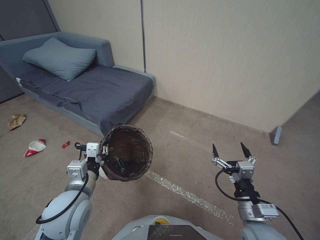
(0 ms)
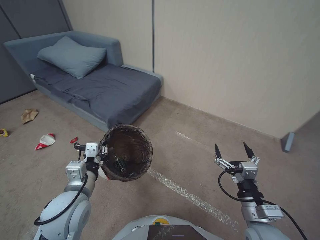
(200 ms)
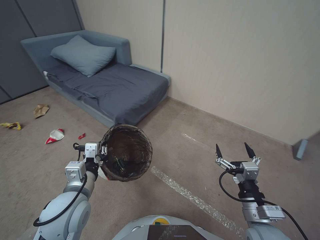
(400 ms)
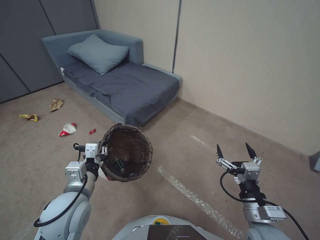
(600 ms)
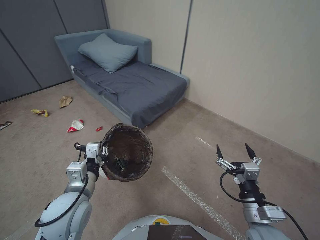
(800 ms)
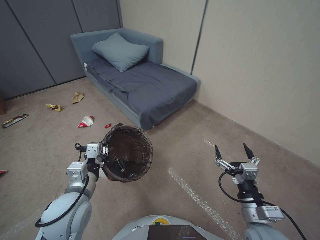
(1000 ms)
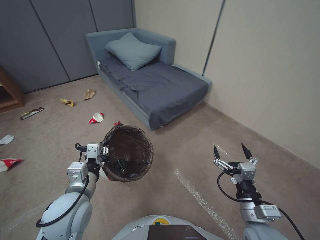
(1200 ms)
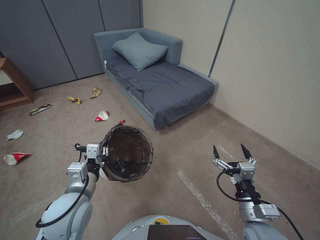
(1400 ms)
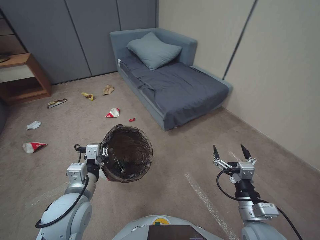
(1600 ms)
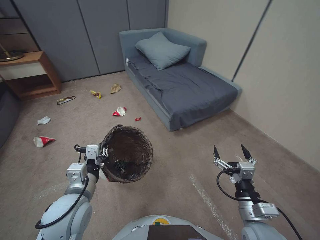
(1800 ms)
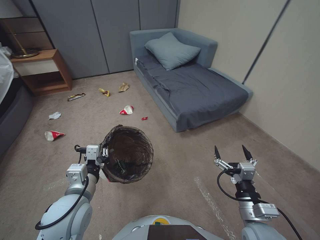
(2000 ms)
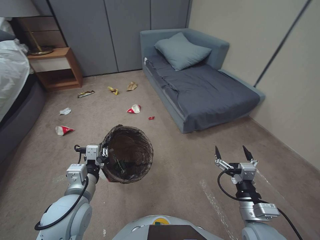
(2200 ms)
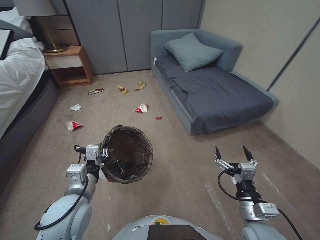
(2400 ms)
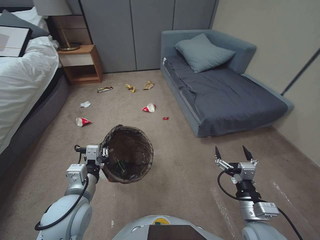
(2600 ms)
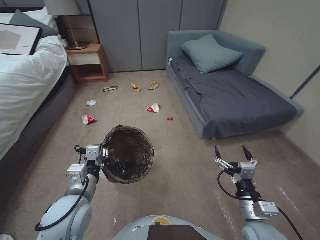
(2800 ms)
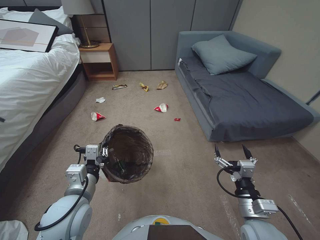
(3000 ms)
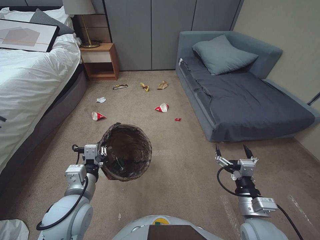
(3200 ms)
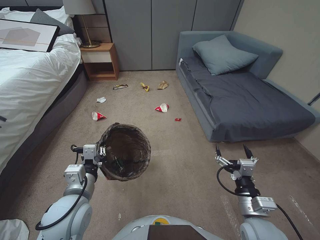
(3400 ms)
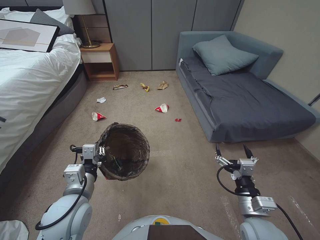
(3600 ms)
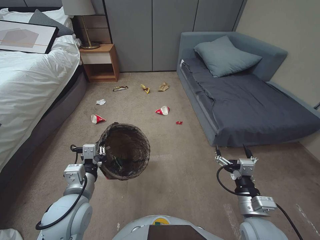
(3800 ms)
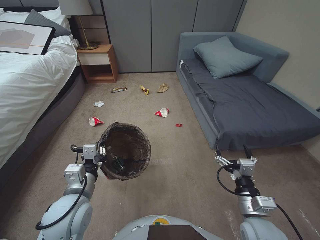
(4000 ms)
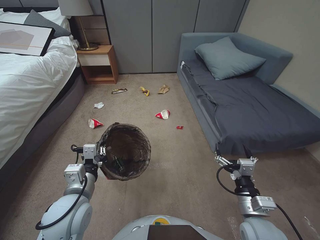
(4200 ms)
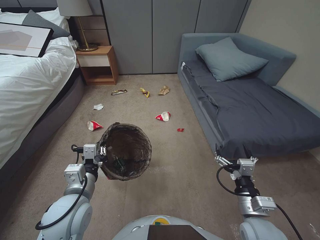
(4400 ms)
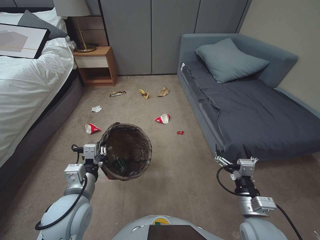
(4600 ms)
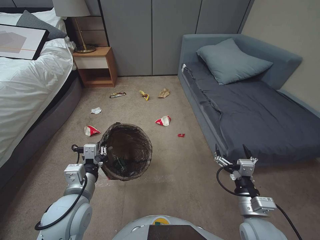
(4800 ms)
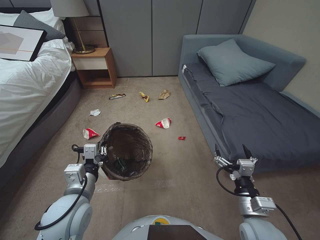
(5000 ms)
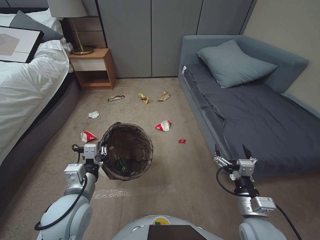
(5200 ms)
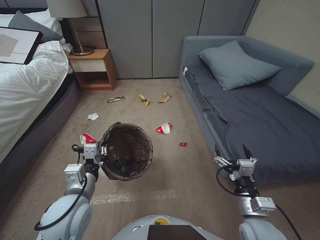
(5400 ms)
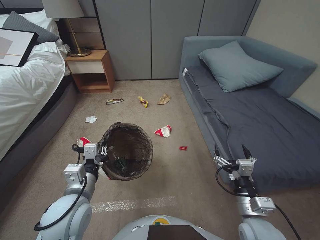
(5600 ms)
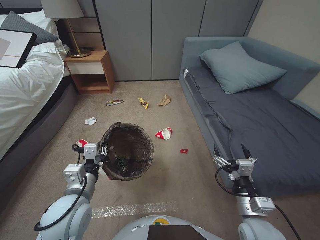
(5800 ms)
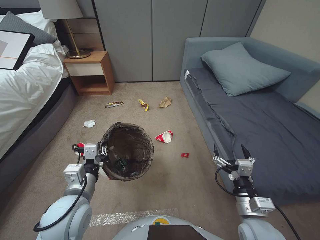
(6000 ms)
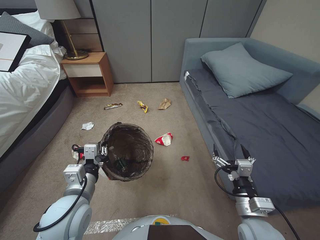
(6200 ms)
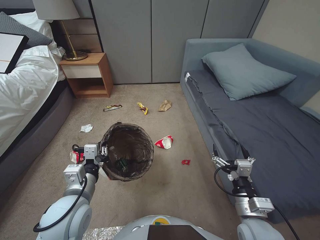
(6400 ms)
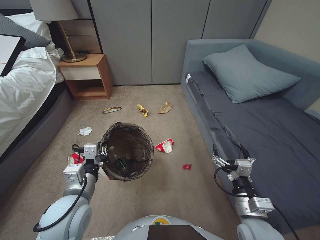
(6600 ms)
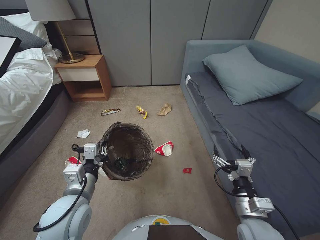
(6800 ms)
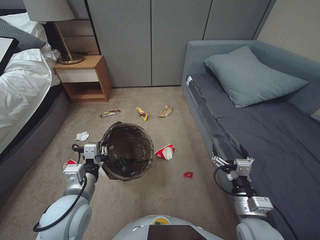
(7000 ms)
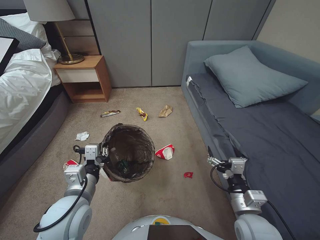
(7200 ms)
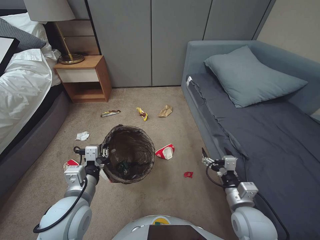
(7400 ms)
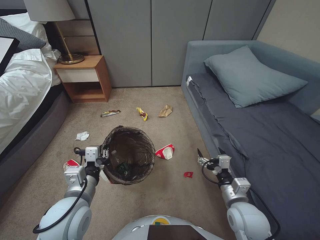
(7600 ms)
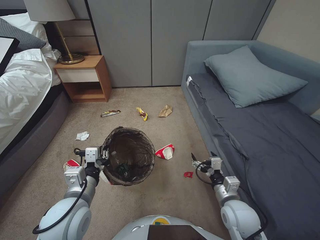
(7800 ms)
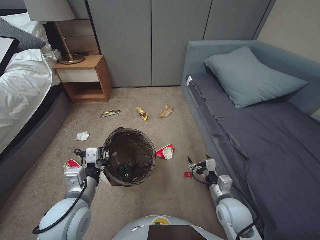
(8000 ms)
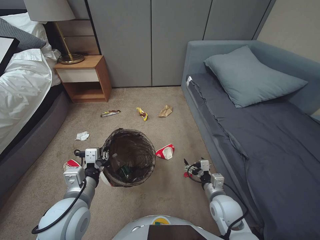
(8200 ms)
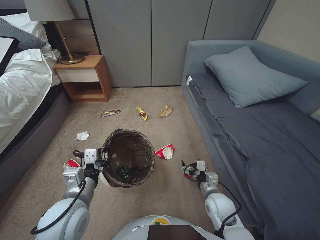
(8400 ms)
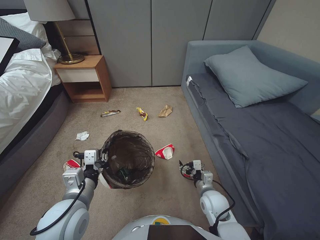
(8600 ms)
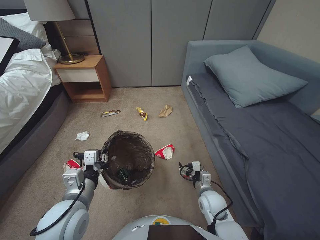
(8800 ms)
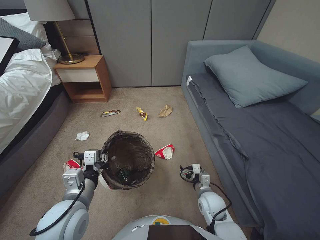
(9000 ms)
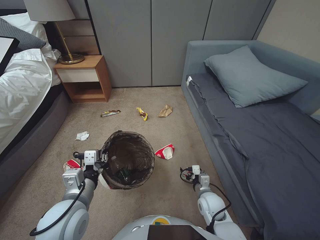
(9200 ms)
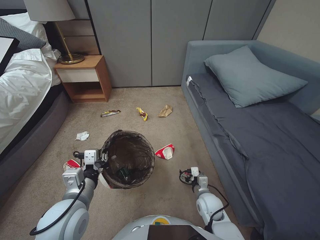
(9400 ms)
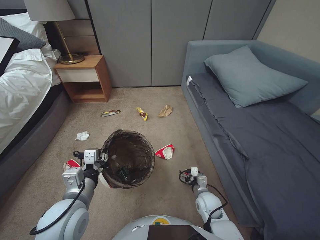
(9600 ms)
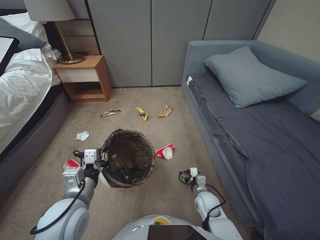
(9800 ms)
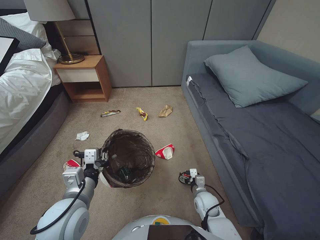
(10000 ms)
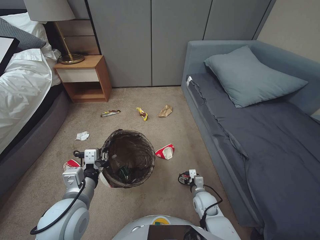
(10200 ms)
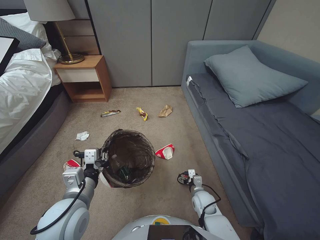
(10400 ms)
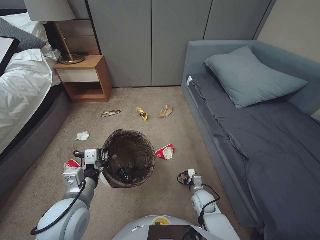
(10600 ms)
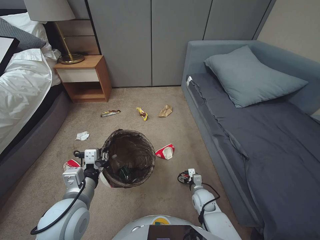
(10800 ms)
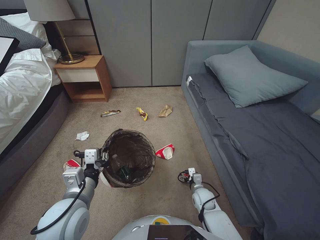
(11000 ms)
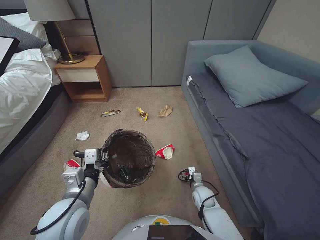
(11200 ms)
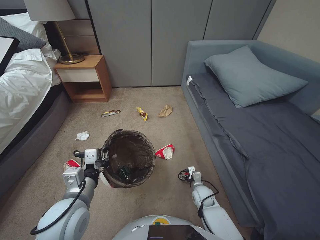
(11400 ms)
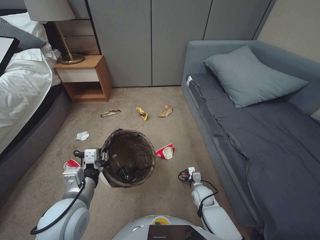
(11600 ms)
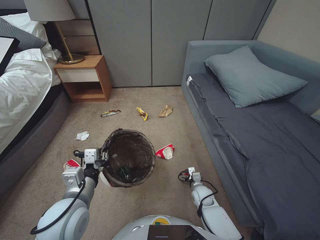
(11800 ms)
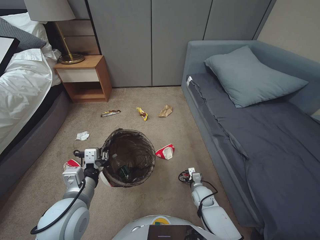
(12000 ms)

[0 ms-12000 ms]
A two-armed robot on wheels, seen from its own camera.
Task of the whole recording: Pick up the trash bin, then pick up the garbage from the floor and place it into the trash bin.
3000 ms to 4400 ms: The two grippers keep their place.
7600 ms to 9000 ms: The right gripper is displaced downward and forward by approximately 15 cm.
9000 ms to 10400 ms: The right gripper shifts about 5 cm downward.
10400 ms to 12000 ms: The grippers make only small movements.

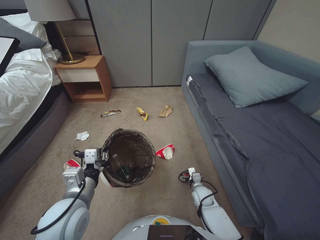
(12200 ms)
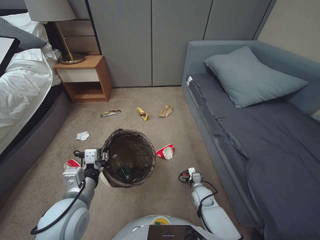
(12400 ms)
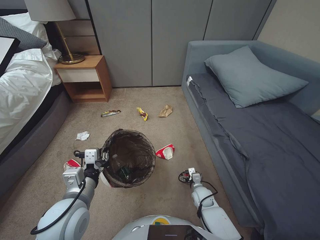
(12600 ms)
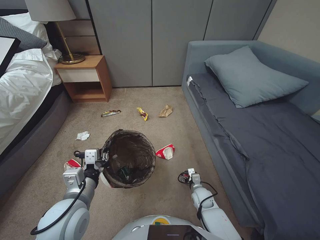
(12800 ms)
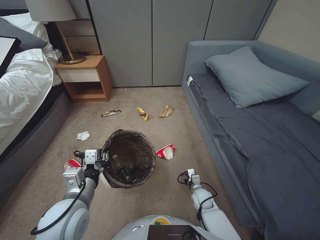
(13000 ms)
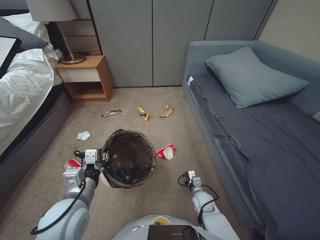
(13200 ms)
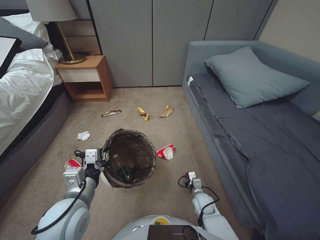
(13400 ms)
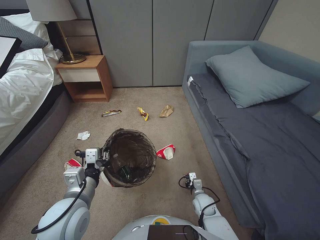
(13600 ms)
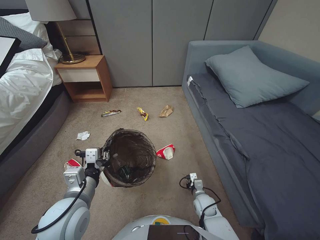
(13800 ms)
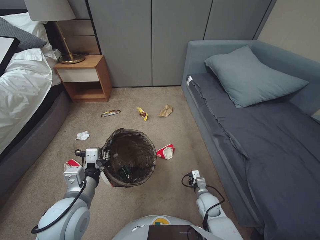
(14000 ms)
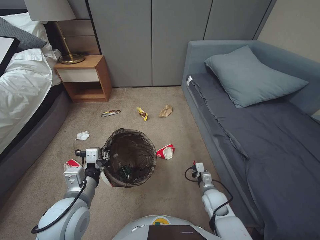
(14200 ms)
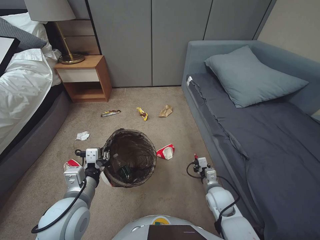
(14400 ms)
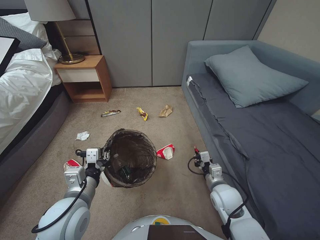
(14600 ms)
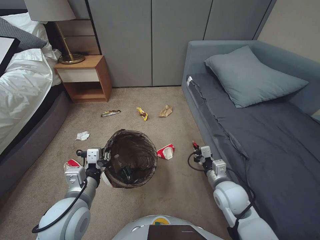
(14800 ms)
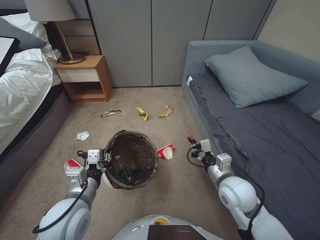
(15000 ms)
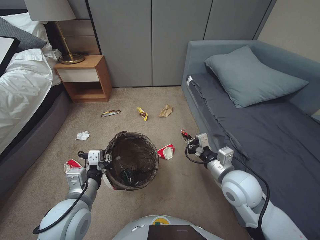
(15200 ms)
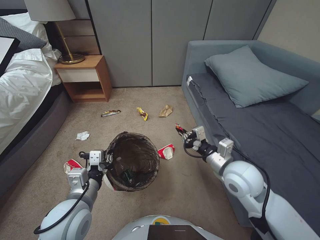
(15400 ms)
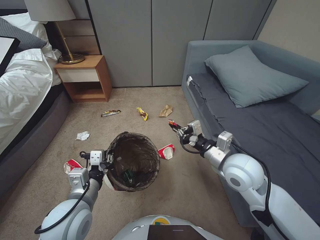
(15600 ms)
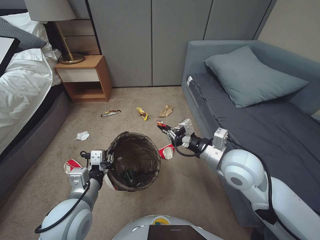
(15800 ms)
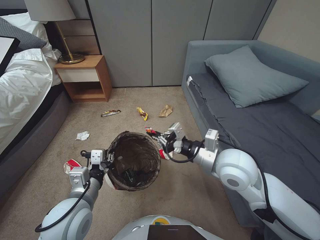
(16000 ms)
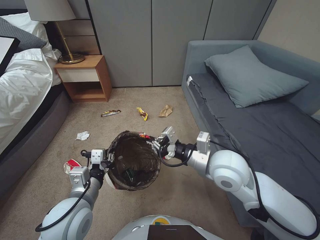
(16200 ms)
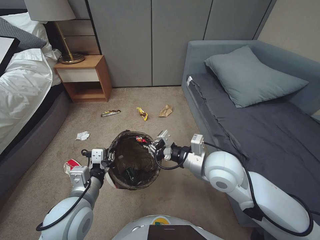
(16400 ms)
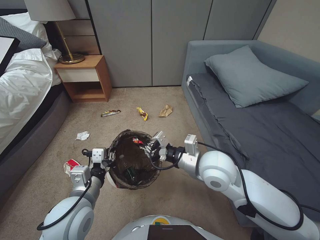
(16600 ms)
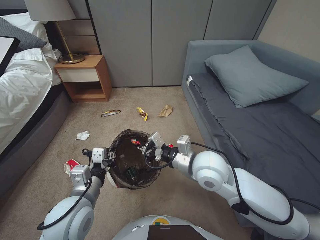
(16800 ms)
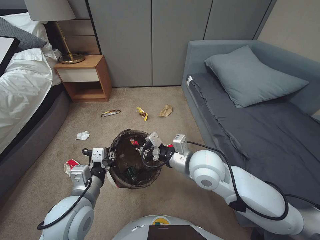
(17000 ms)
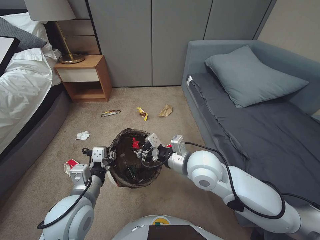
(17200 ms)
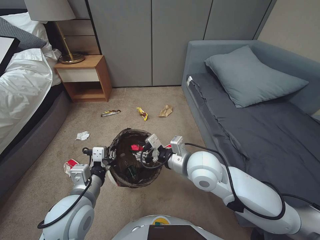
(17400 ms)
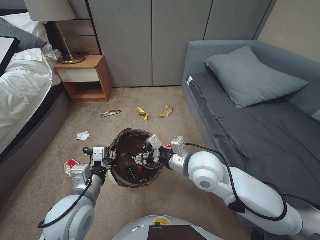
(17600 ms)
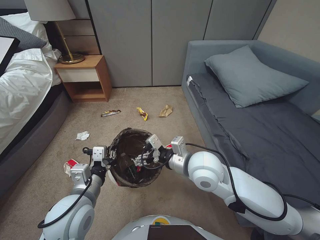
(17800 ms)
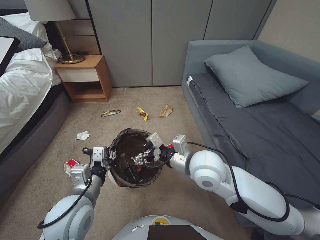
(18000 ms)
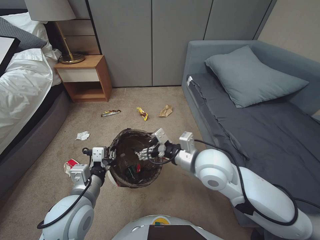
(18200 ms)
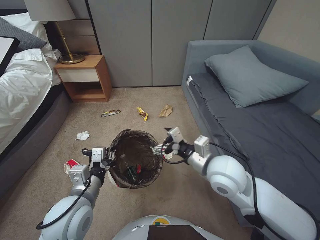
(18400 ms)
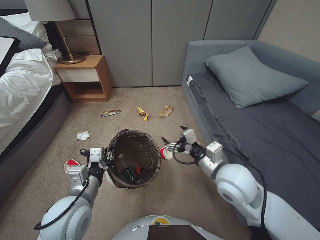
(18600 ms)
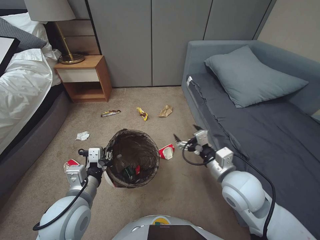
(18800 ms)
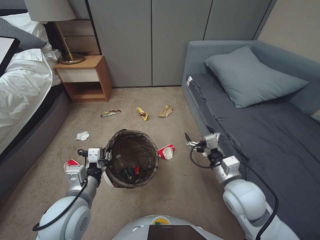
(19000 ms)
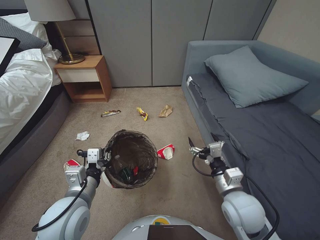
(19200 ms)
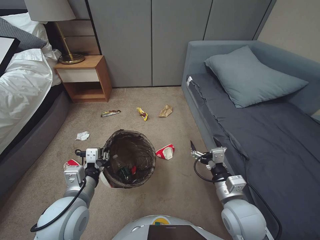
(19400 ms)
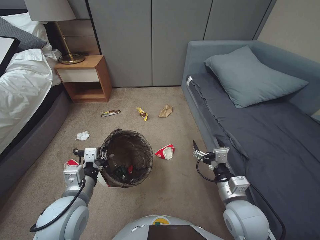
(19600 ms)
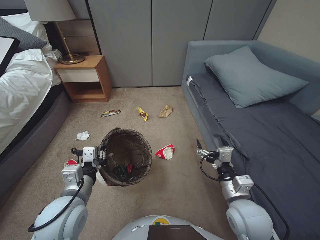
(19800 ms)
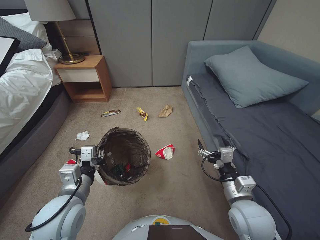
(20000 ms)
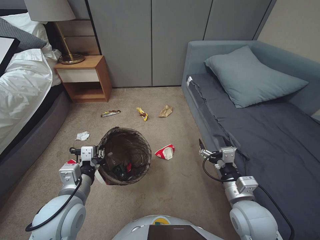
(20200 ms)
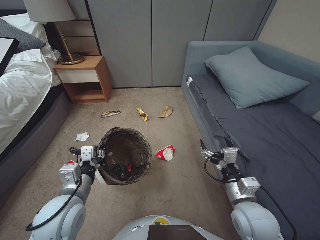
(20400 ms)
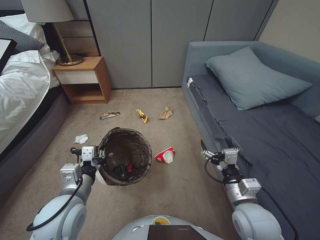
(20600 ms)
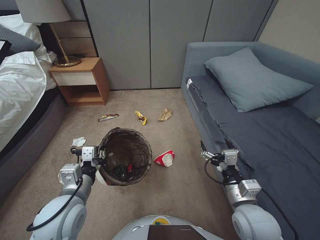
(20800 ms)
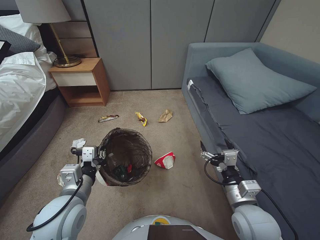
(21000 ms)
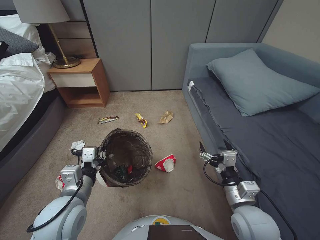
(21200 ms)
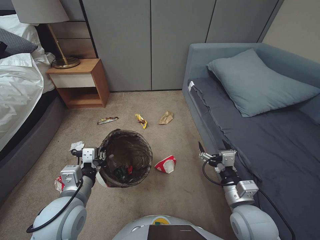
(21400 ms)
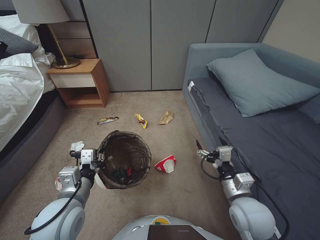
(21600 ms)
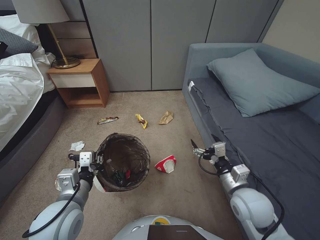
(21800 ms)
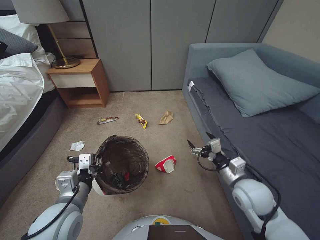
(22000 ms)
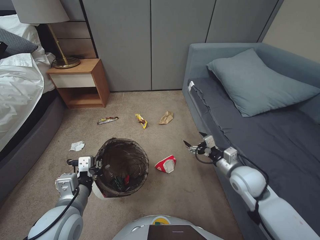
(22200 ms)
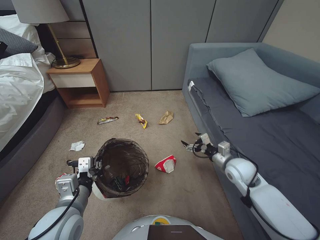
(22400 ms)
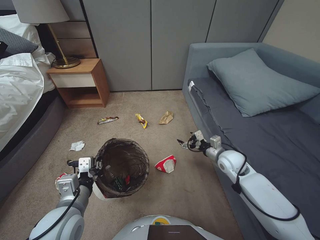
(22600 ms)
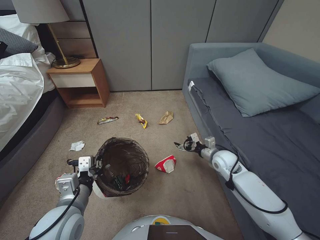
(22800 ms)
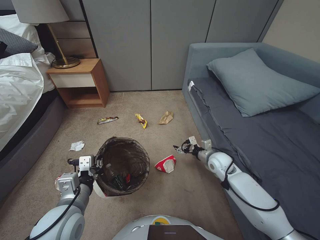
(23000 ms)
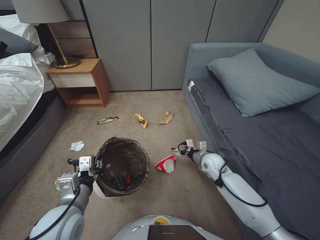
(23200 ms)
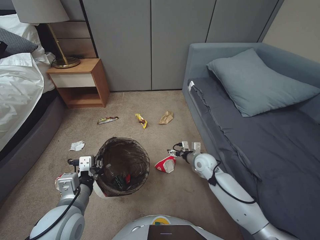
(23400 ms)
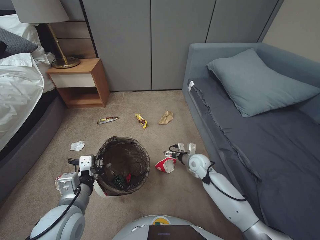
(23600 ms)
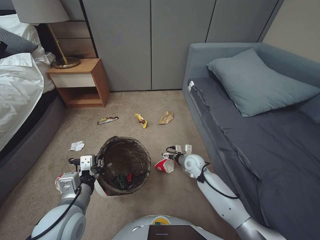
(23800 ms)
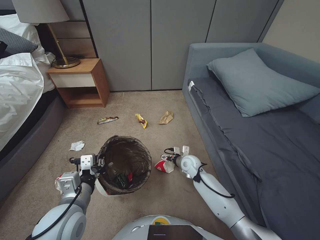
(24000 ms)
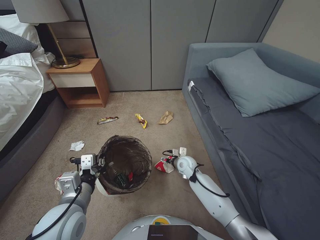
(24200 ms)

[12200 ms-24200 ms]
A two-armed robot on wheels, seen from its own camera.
Task of the whole recording: Pick up the trash bin, then pick up the garbage from the floor and place it into the trash bin.
12200 ms to 13800 ms: The right gripper closes up.
13800 ms to 15200 ms: The right gripper shifts about 30 cm upward.
15200 ms to 16600 ms: The right gripper moves to the left and upward, about 10 cm.
16600 ms to 18200 ms: The right gripper opens up.
18200 ms to 19800 ms: The right gripper shifts some 20 cm to the right, downward and backward.
19800 ms to 21200 ms: The grippers make only small movements.
21200 ms to 22600 ms: The right gripper travels forward by approximately 20 cm.
22600 ms to 24200 ms: The right gripper goes roughly 20 cm to the left and downward.
